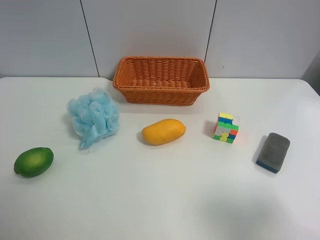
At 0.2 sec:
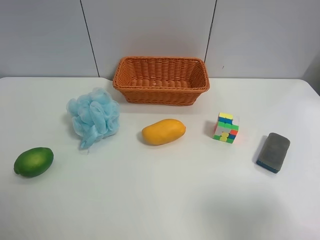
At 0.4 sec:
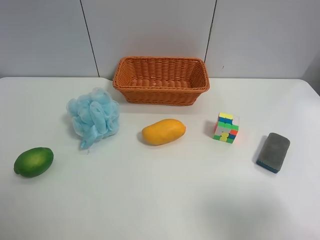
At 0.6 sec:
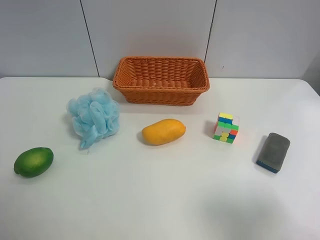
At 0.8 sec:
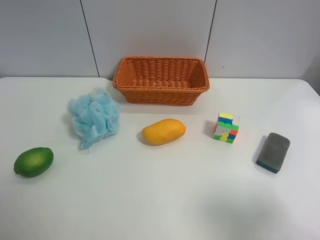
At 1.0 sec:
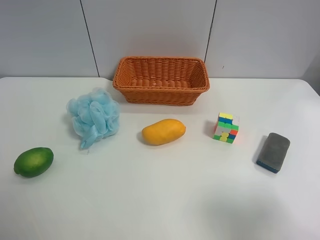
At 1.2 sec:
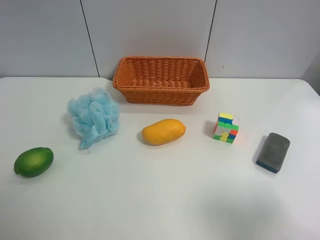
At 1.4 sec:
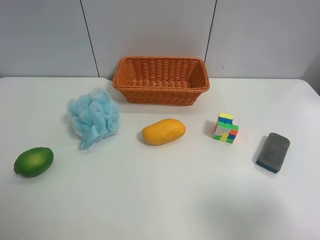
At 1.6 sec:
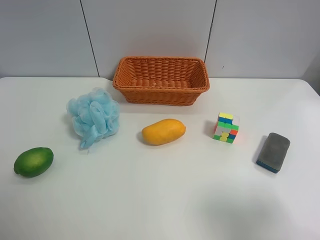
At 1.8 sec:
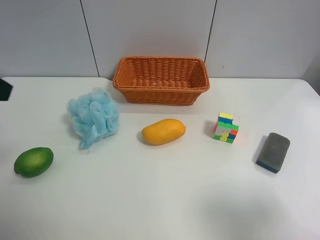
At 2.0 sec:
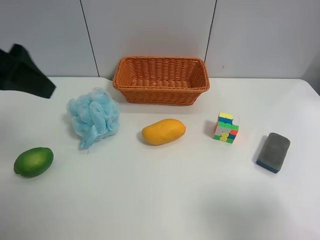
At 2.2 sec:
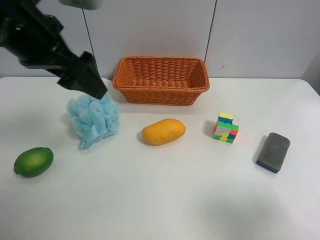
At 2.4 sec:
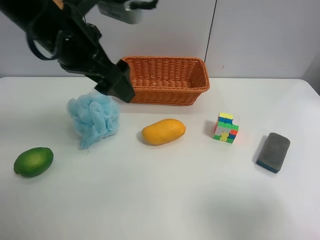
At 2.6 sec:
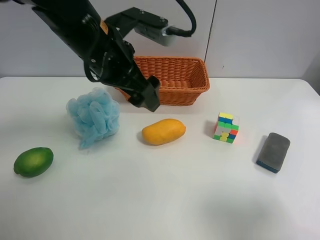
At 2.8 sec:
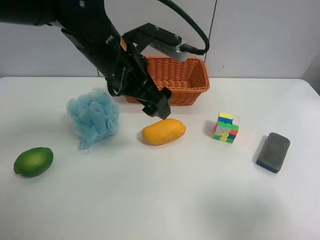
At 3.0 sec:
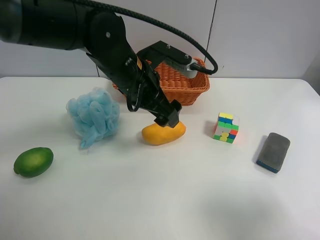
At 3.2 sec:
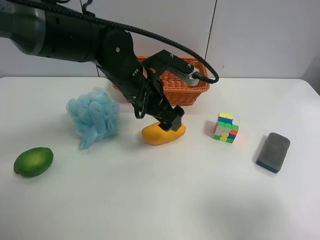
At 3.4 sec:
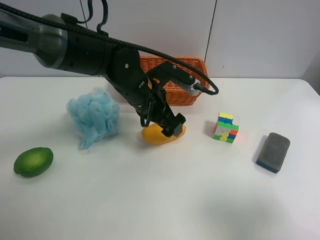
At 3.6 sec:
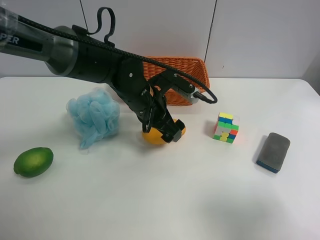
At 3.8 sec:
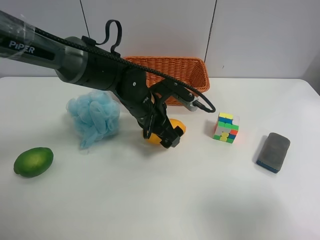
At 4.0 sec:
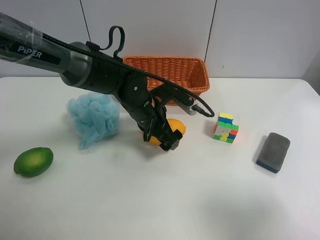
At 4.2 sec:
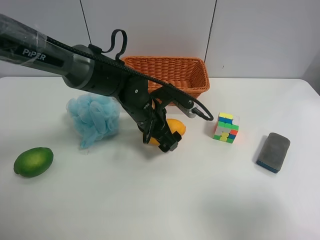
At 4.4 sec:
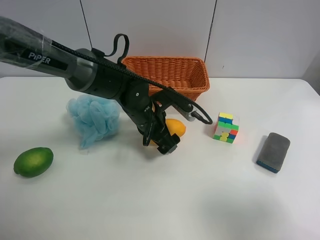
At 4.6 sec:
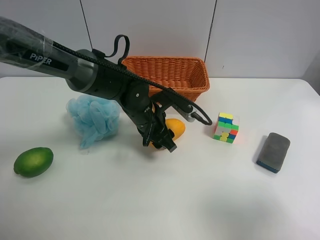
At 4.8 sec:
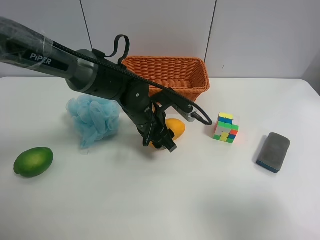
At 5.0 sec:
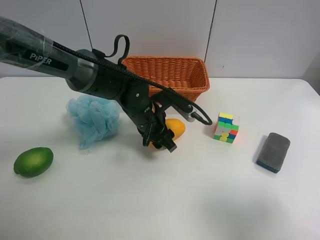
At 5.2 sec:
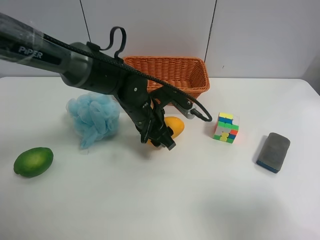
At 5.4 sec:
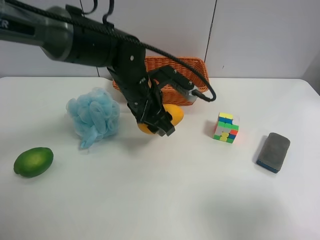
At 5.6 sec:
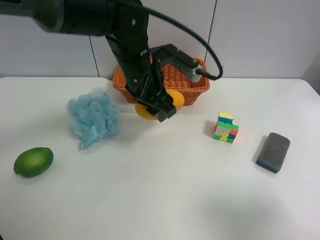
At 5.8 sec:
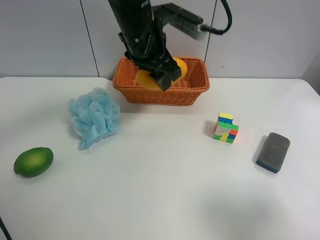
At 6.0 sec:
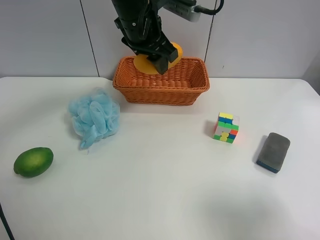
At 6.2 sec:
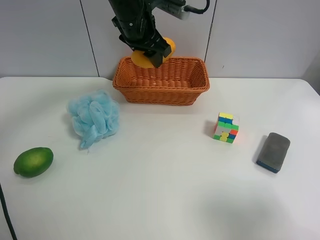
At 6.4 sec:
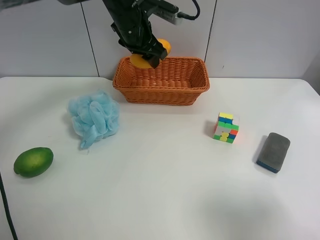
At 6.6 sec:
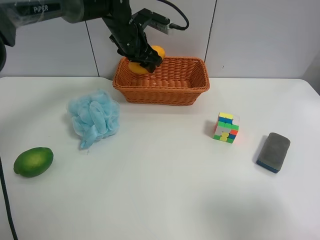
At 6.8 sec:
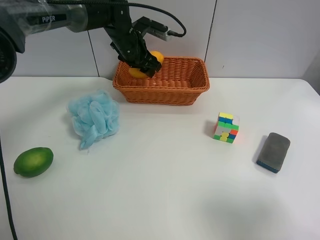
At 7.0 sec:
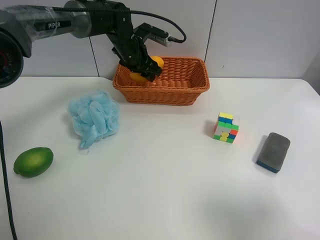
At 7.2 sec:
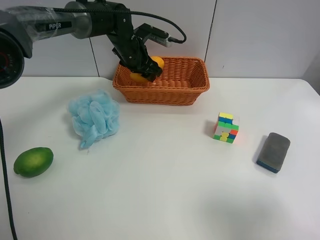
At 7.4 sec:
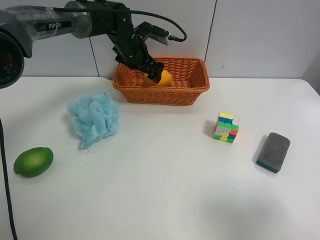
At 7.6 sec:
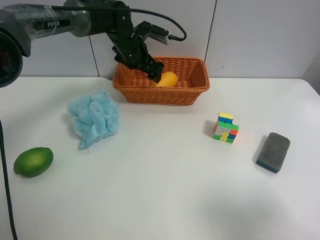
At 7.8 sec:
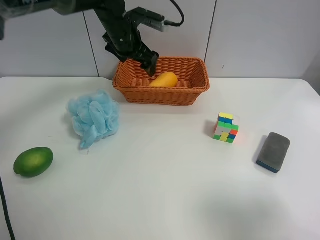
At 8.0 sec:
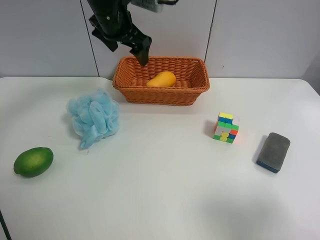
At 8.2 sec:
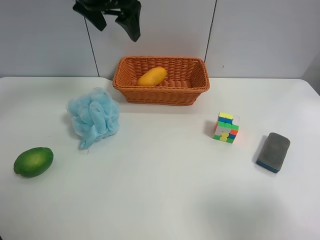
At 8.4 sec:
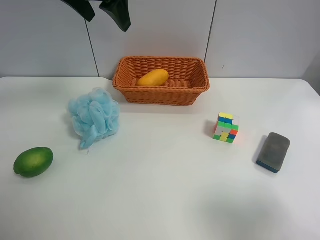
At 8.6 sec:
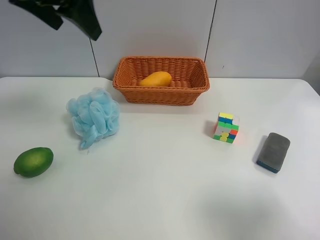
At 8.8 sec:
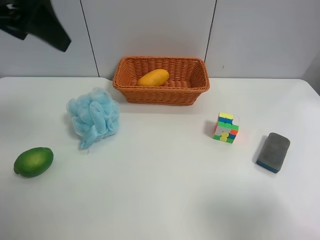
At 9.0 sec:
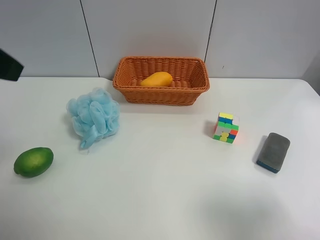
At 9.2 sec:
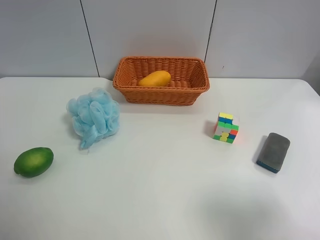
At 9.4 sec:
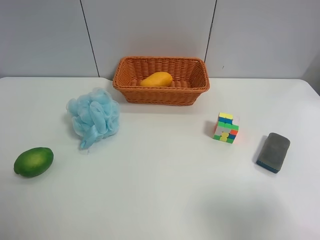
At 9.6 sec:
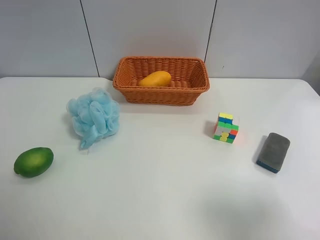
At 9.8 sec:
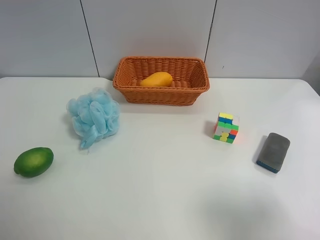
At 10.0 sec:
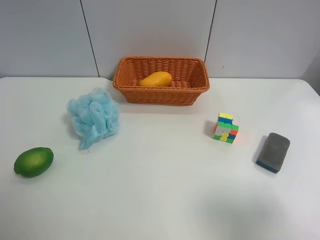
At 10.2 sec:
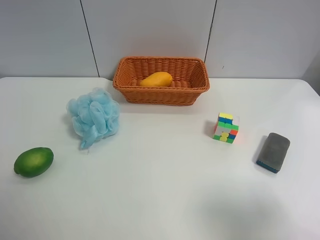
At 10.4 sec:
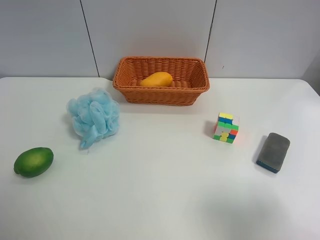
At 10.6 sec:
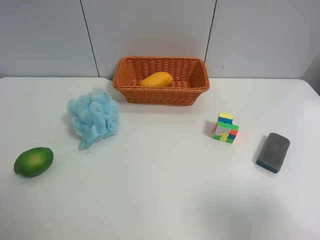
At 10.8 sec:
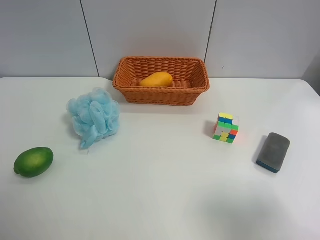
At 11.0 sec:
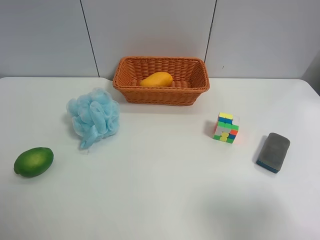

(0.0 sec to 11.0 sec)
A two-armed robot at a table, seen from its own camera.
Task of the whole recording: Randomly grab green lemon or mangoes from the table and put them in a basket.
Step, 0.0 sec - 4.6 sec: Grasp the mango with the left gripper.
Step, 4.8 sec - 8.0 sec: Place the mango into the basket with the left gripper.
1.6 sec - 3.2 sec: The left gripper travels to the right, forward and downward by approximately 35 cm.
3.2 sec - 4.8 sec: The left gripper is displaced downward by about 10 cm, and closes its fingers.
4.8 sec - 6.2 sec: The left gripper shifts about 20 cm upward and forward.
6.2 sec - 7.8 sec: The left gripper goes downward and returns, about 10 cm each way, and opens up.
7.8 sec - 9.4 sec: The left gripper heads backward and to the left, covering some 40 cm.

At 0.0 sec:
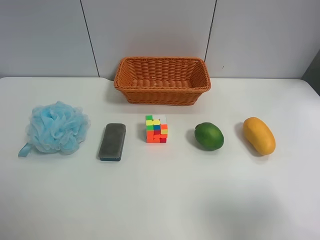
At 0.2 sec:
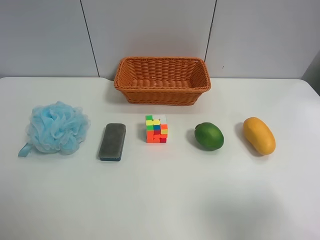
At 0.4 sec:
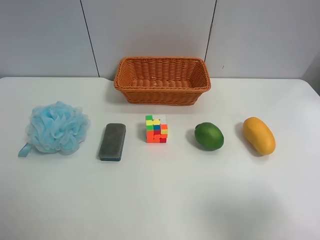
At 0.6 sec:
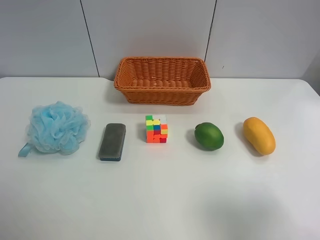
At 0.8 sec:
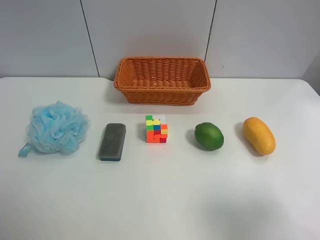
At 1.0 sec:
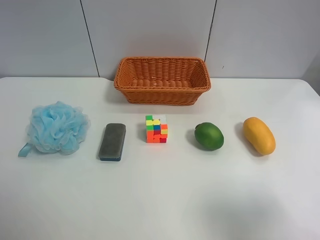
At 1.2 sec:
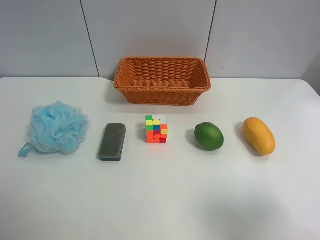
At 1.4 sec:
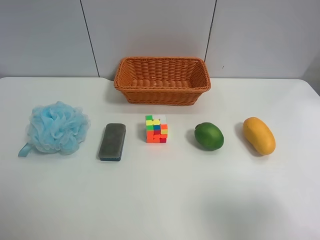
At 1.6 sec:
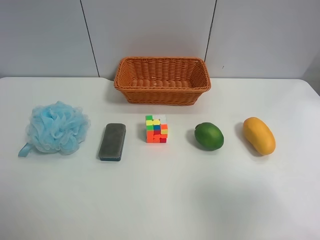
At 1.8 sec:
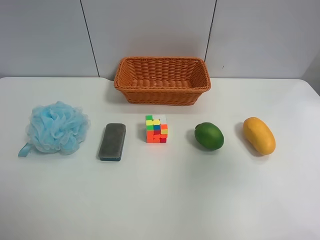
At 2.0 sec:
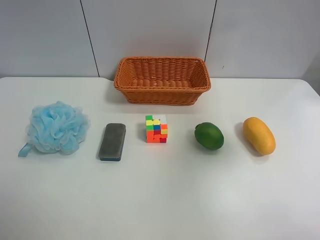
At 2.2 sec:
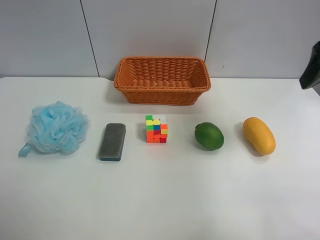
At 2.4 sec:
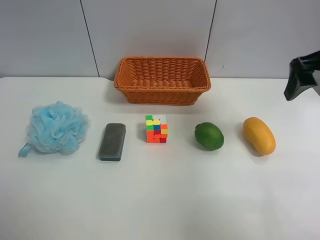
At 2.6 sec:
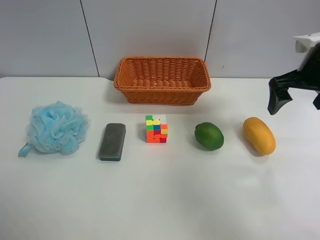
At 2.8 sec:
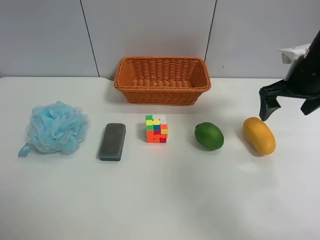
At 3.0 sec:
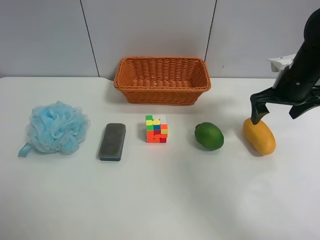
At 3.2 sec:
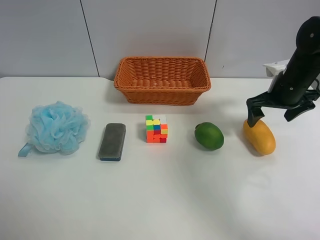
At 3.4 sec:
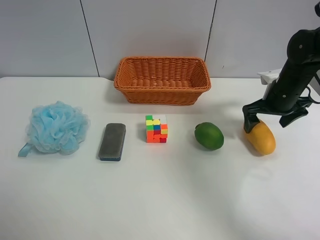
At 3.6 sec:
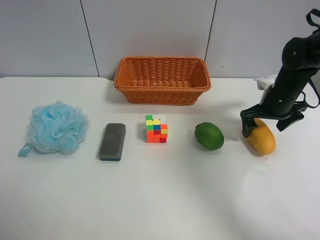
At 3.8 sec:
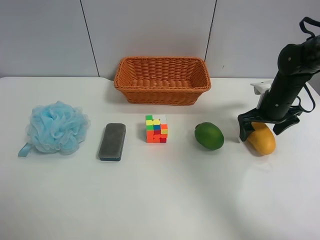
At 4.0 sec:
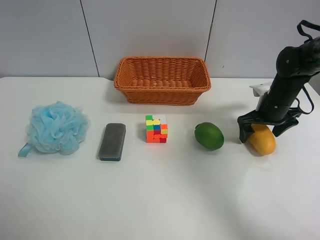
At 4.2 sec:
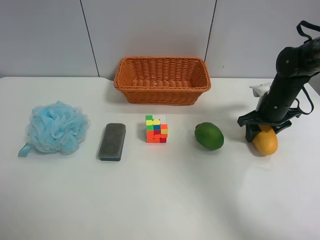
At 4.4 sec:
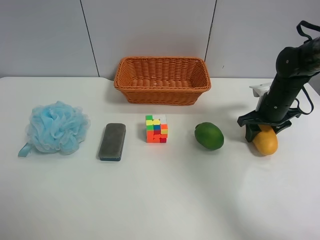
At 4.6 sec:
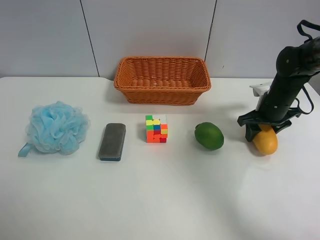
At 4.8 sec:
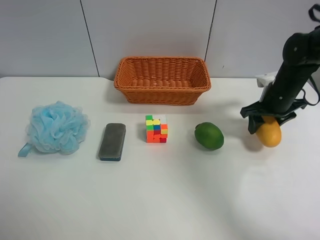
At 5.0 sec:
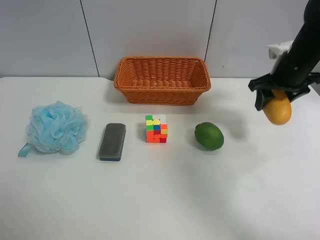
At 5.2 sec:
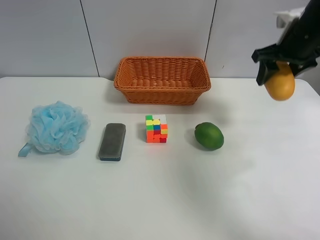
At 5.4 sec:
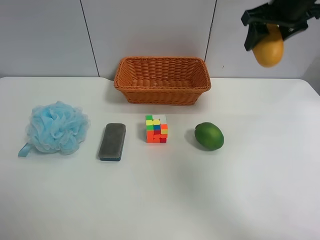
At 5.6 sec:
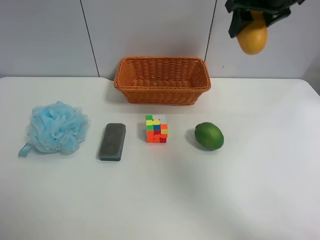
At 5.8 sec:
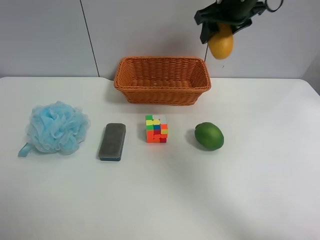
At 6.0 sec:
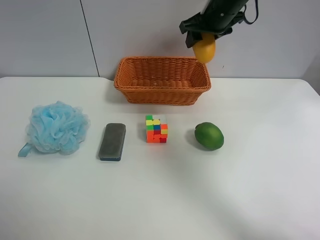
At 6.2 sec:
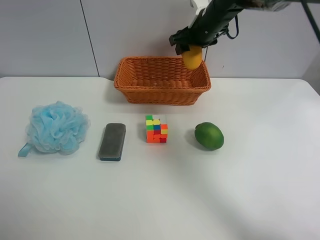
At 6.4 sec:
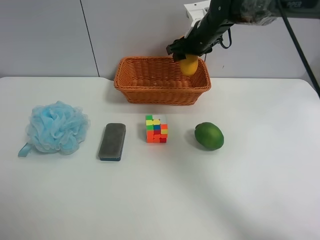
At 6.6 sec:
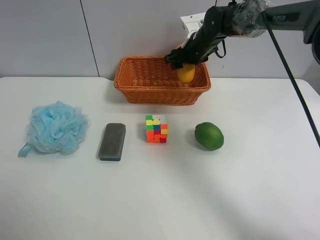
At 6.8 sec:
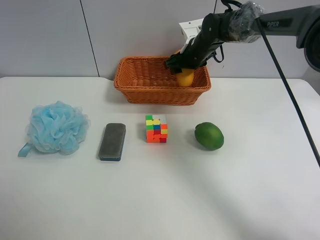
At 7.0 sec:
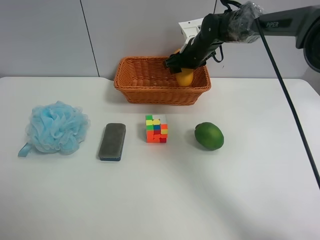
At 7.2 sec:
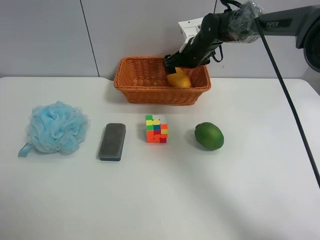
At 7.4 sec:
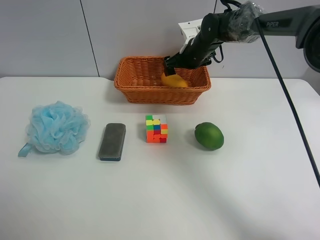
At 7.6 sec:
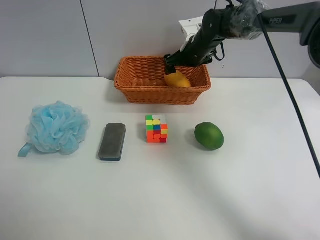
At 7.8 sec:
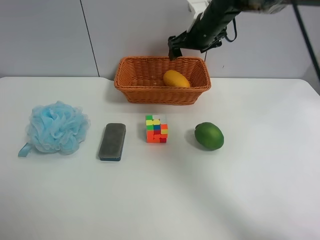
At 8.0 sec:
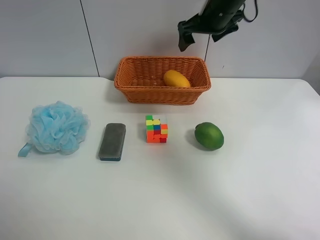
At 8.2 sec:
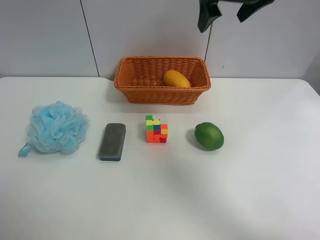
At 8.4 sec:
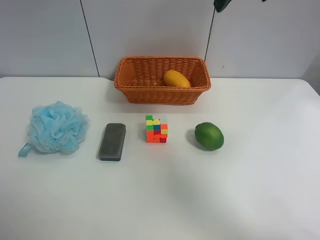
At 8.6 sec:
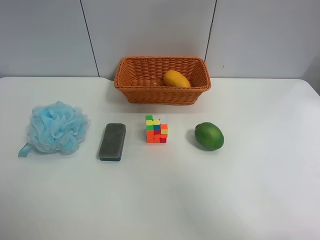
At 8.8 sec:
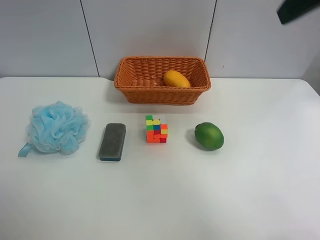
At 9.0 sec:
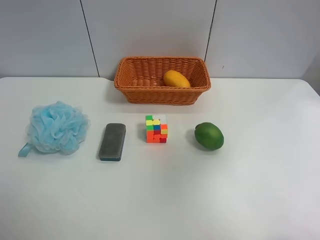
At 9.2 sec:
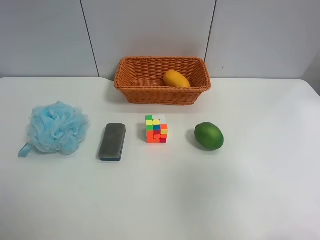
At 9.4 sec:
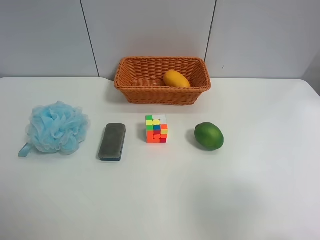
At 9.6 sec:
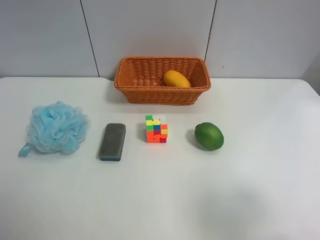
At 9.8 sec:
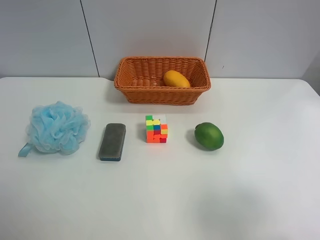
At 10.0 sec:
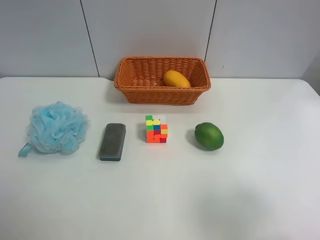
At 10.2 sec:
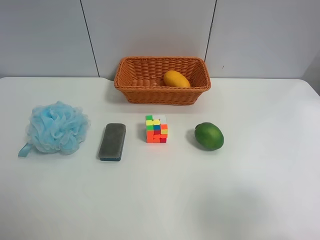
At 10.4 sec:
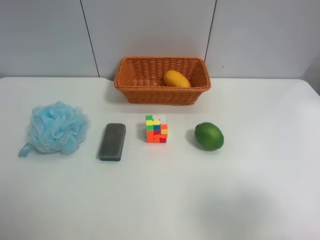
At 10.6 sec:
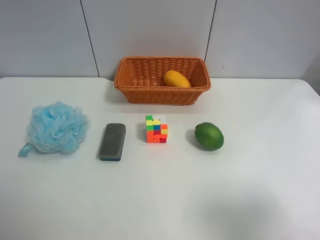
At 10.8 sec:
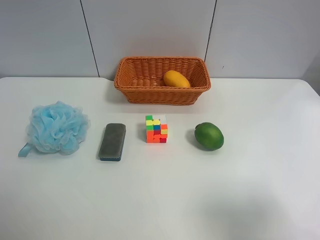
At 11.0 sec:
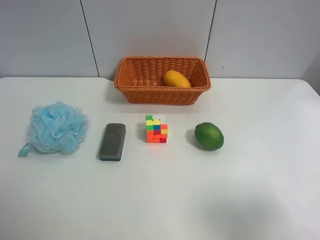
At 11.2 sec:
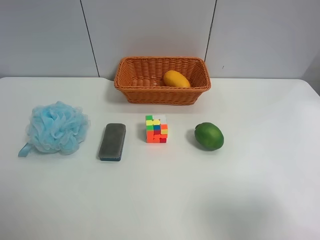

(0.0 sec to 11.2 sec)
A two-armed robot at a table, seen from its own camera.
Task of the whole recording: Randomly grab green lemon or mangoes from the table and put them in a basket.
Step, 0.0 sec - 4.2 sec: Grasp the mango with the right gripper.
Step, 4.4 sec - 7.8 sec: Place the mango into the basket with the right gripper.
0.0 sec - 1.6 sec: The right gripper shifts by some 5 cm.
1.6 sec - 3.2 sec: The right gripper heads forward and downward, covering some 35 cm.
3.2 sec - 4.8 sec: The right gripper closes up.
4.8 sec - 6.4 sec: The right gripper goes some 20 cm to the left and forward, and reaches some 20 cm upward, then returns.
6.4 sec - 8.0 sec: The right gripper heads upward and backward, covering about 10 cm, and opens up.
8.0 sec - 9.6 sec: The right gripper travels backward by some 40 cm.
